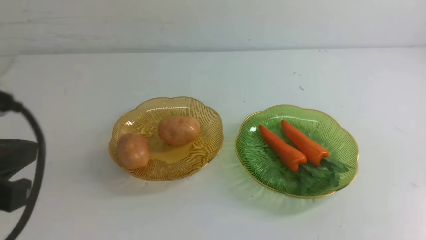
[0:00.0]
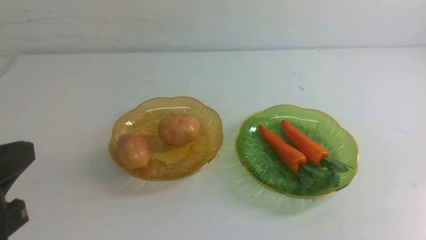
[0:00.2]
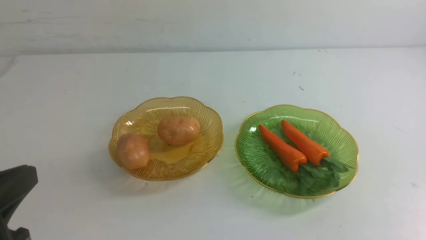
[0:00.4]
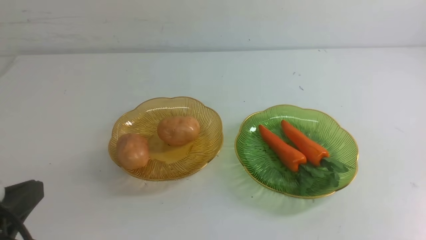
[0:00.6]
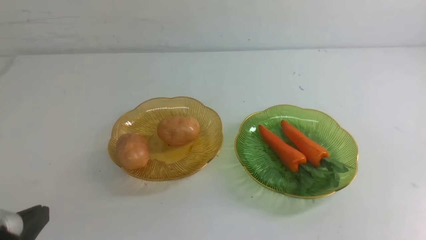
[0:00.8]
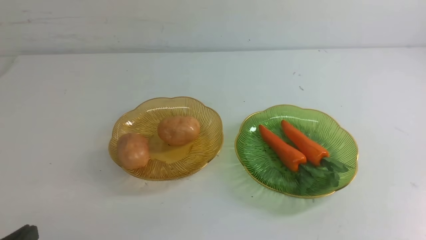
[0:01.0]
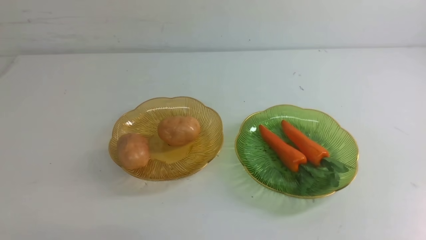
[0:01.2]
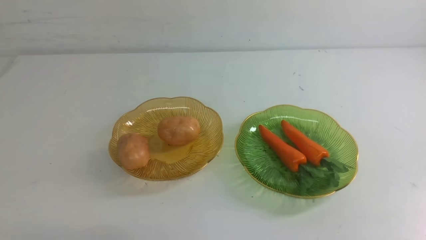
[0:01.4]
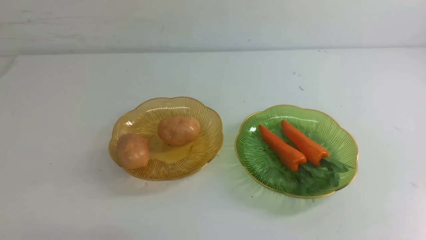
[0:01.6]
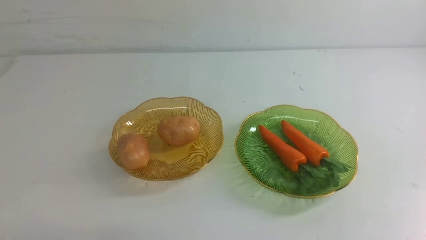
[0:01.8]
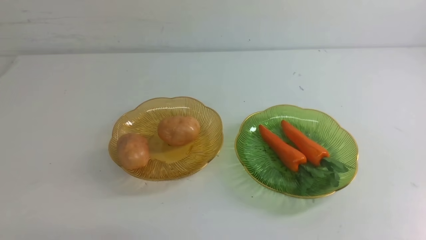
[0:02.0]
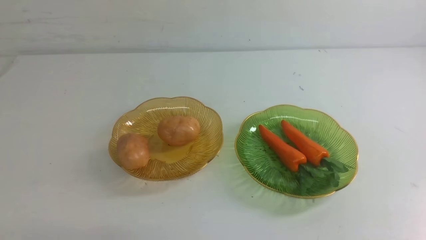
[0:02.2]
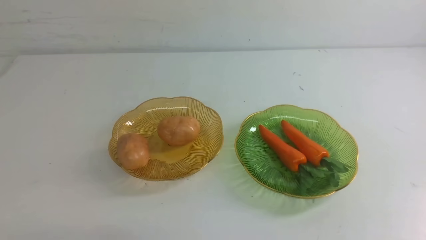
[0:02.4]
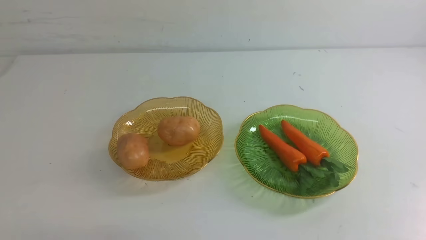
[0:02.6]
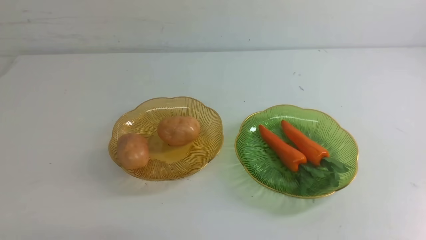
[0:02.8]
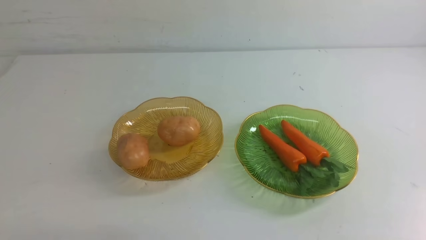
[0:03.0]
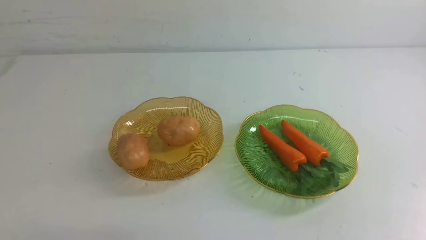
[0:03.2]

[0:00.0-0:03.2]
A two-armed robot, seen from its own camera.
0:00.0 to 0:01.6: The left gripper travels downward and backward by about 25 cm.
0:01.6 to 0:03.2: Neither gripper changes place.
